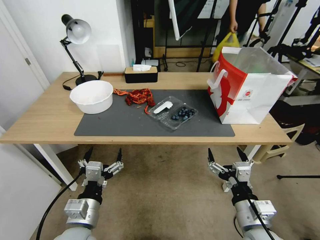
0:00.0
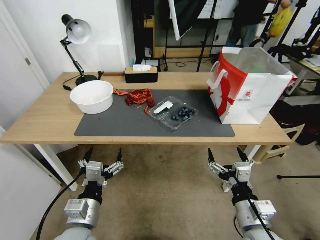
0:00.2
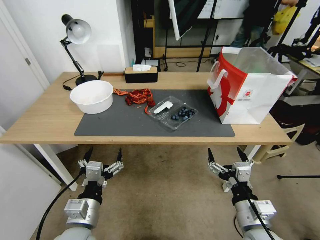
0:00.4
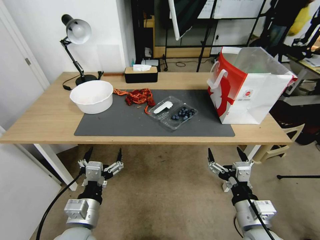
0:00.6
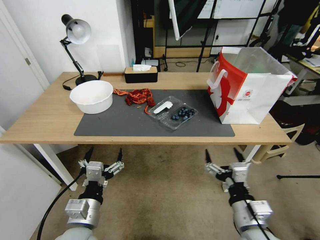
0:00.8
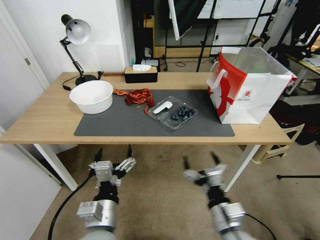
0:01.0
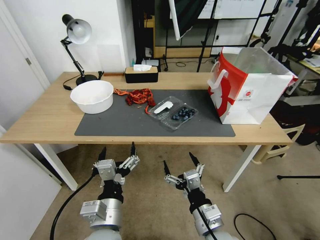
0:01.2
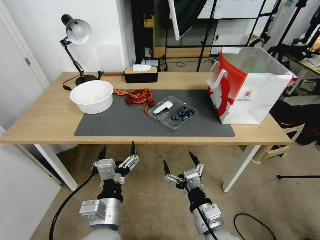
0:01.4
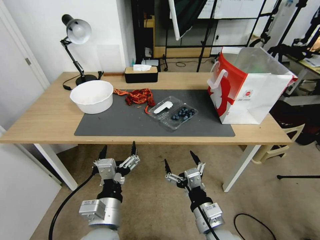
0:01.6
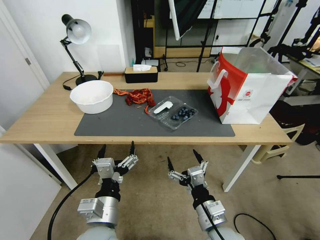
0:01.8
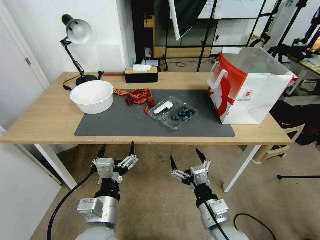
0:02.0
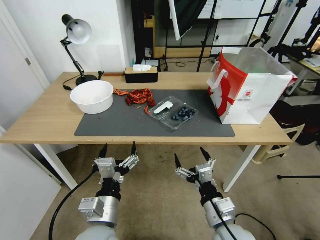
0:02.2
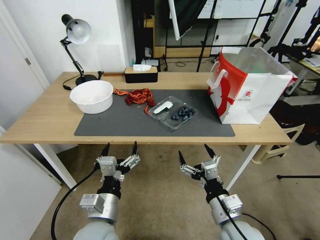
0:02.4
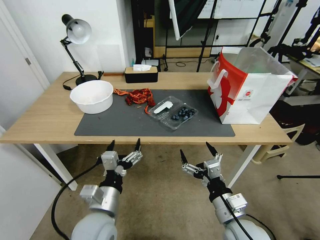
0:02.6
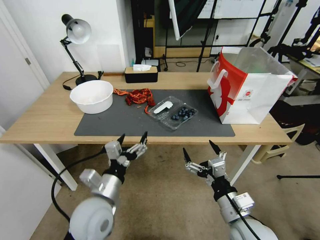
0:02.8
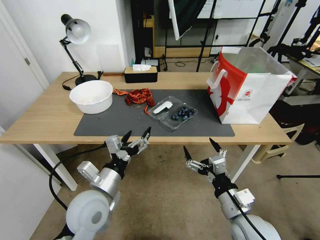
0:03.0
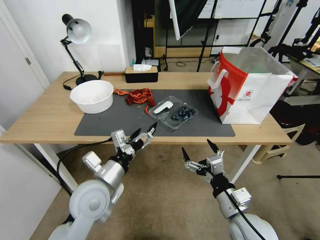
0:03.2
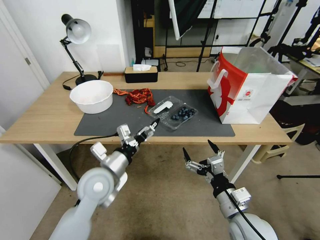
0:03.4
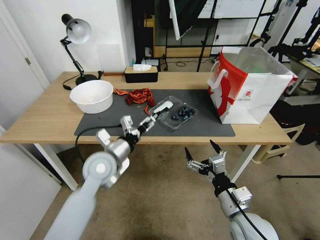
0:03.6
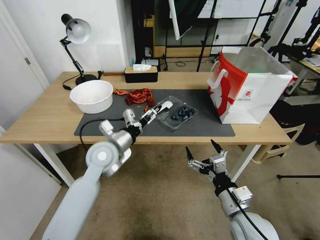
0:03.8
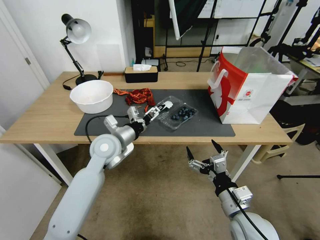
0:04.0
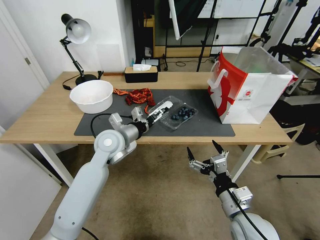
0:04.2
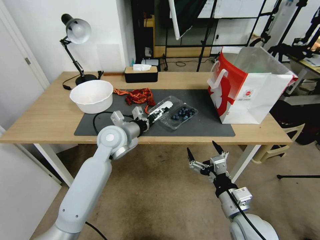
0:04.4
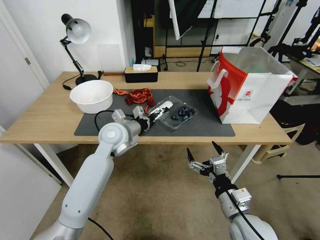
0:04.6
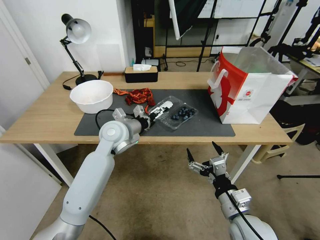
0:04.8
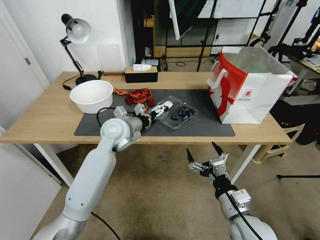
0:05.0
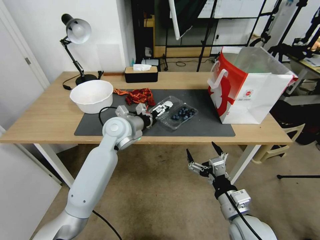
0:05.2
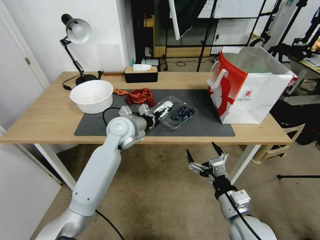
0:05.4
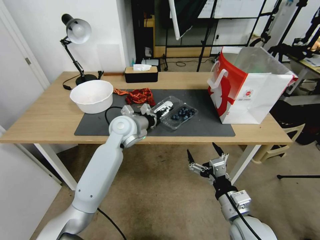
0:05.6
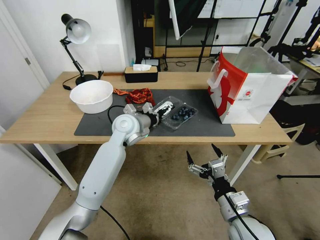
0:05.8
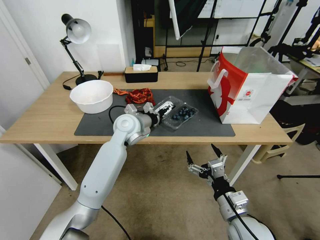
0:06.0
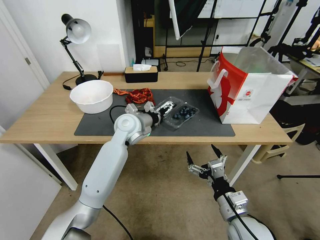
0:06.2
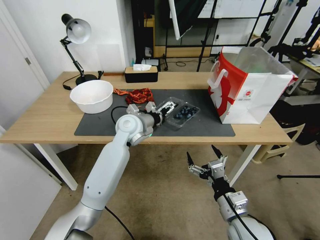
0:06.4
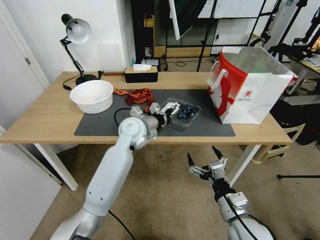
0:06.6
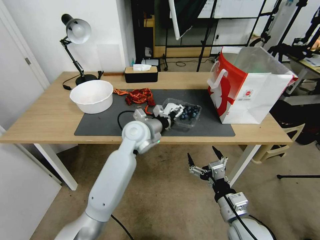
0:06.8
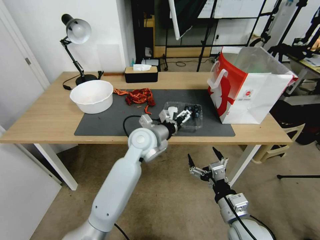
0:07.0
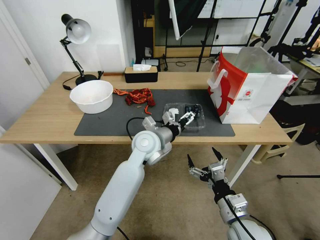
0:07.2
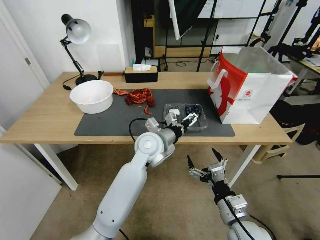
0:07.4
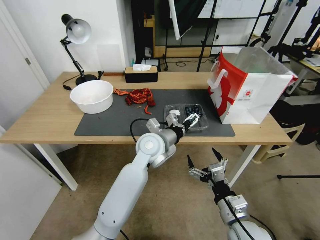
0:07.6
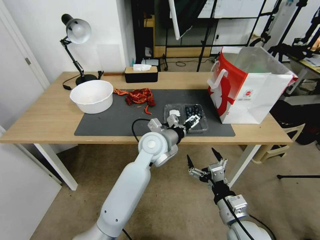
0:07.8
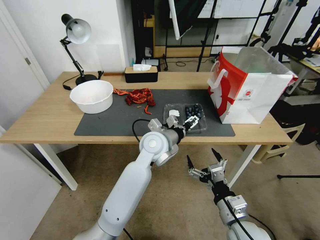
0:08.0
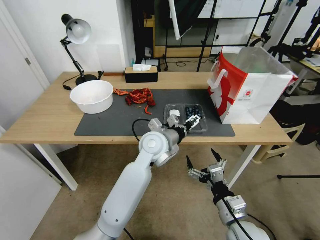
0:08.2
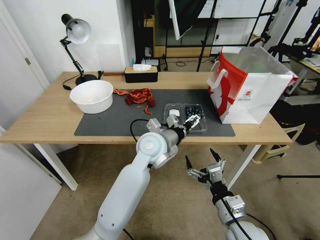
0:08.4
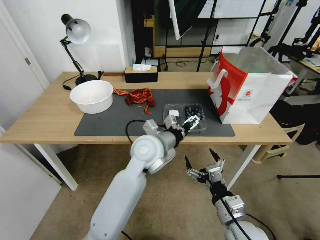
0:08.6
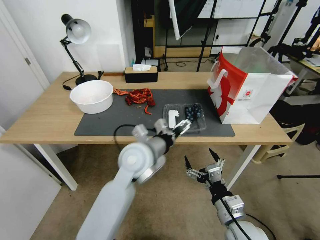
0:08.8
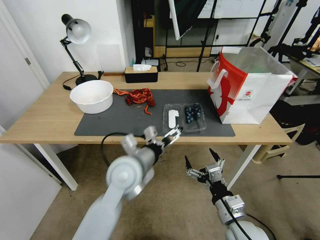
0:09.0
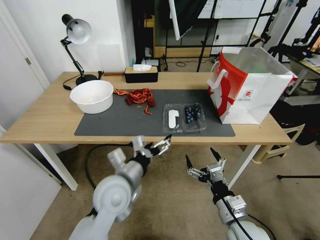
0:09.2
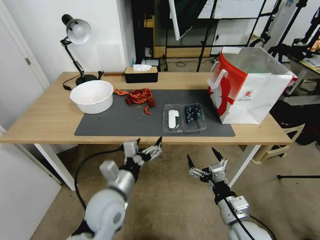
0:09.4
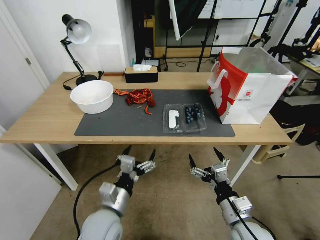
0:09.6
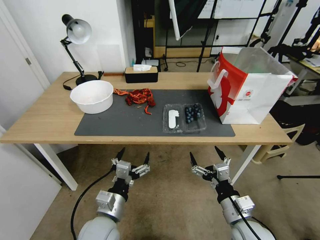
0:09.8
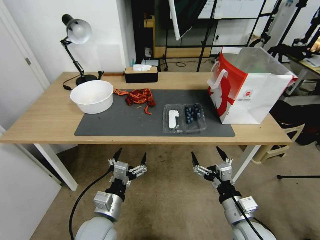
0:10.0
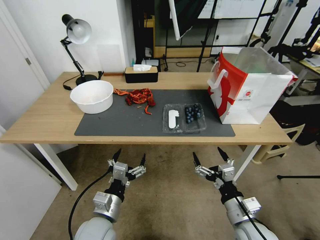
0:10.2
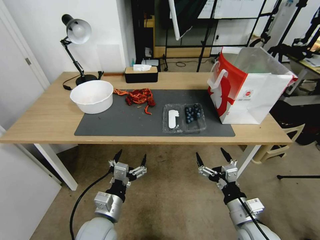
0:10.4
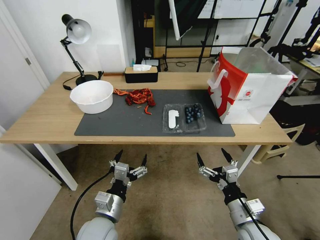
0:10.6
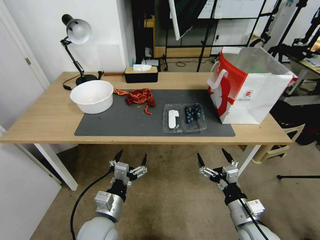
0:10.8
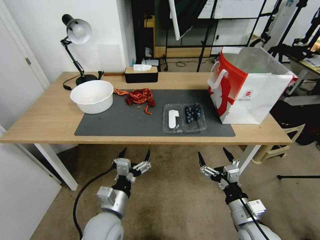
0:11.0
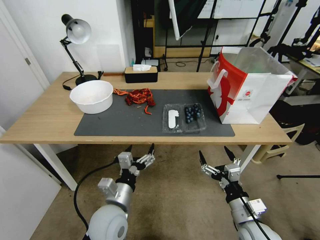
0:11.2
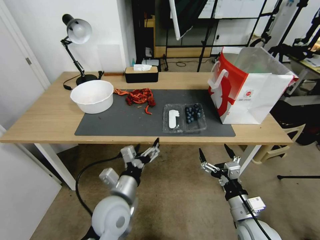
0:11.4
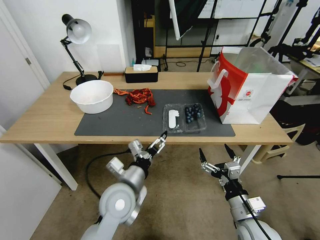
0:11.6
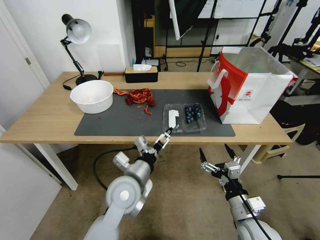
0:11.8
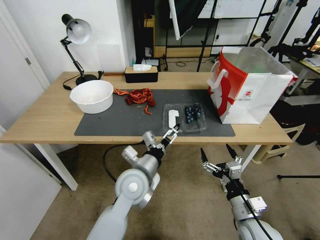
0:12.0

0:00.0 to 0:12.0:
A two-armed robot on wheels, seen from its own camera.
Task of the whole recording: Close the takeout container lid, then place the container into the takeout bag.
0:01.6 to 0:03.0: The left gripper goes about 10 cm forward. Meanwhile the right gripper is displaced to the right by roughly 5 cm.
0:03.0 to 0:04.4: The left gripper goes about 20 cm forward.
0:04.4 to 0:06.0: The left gripper heads forward, covering roughly 5 cm.
0:06.0 to 0:07.6: The left gripper heads to the right and backward, covering roughly 10 cm.
0:07.6 to 0:09.0: The left gripper heads backward and to the left, covering about 10 cm.
0:09.0 to 0:10.4: The left gripper moves downward, backward and to the left, roughly 20 cm.
0:10.4 to 0:12.0: The left gripper shifts approximately 15 cm forward, to the right and upward.

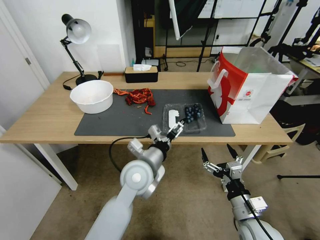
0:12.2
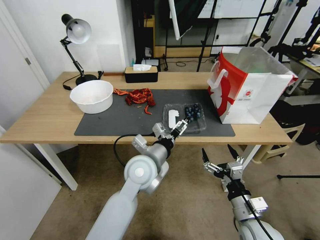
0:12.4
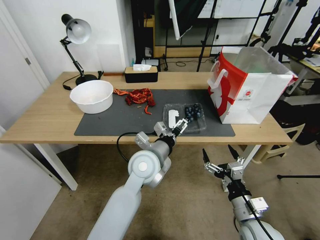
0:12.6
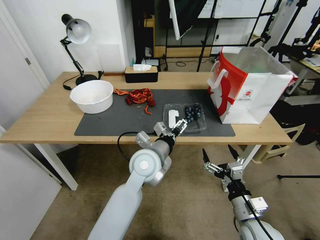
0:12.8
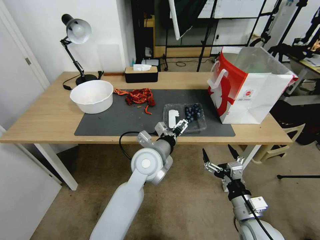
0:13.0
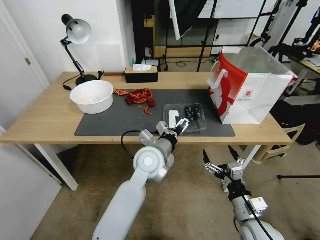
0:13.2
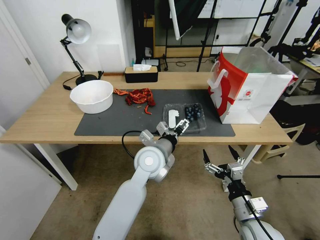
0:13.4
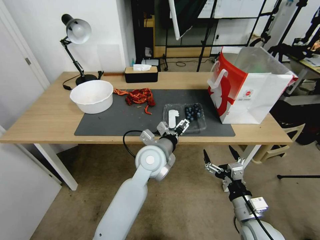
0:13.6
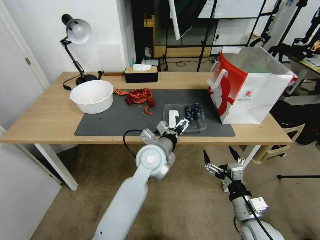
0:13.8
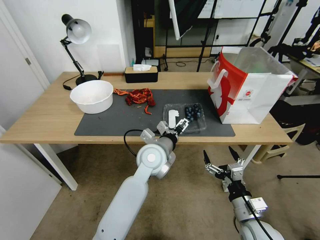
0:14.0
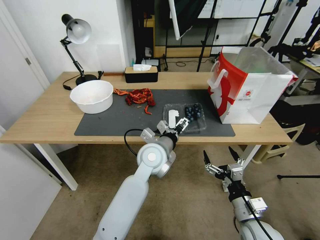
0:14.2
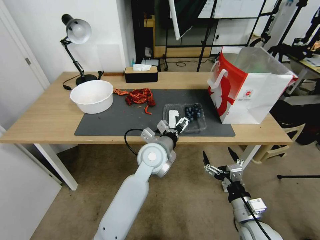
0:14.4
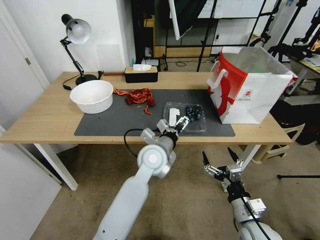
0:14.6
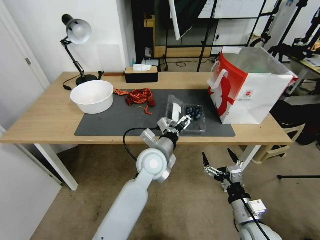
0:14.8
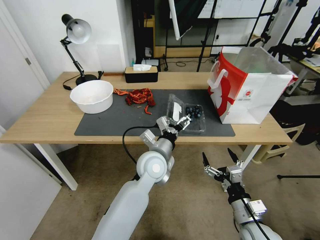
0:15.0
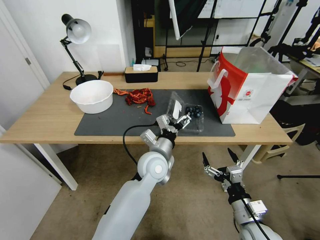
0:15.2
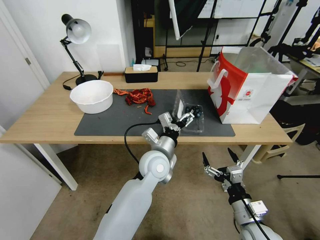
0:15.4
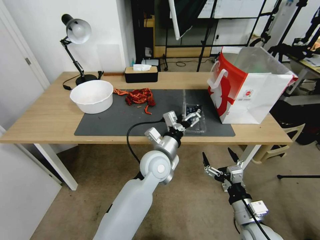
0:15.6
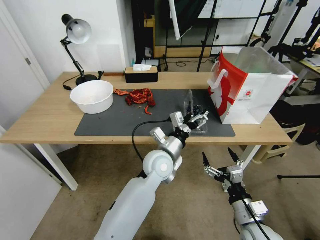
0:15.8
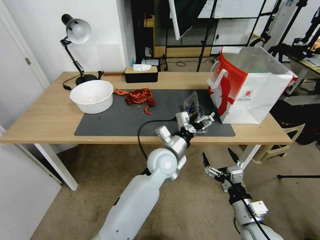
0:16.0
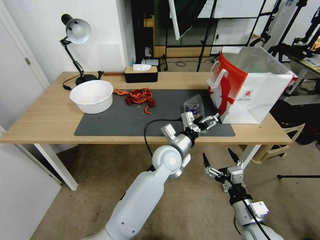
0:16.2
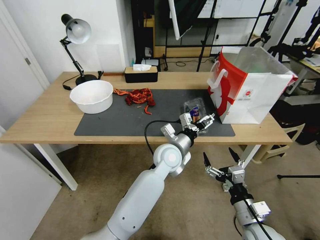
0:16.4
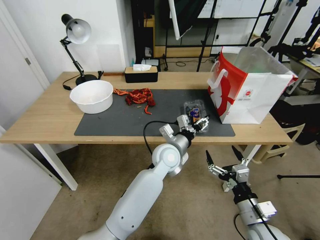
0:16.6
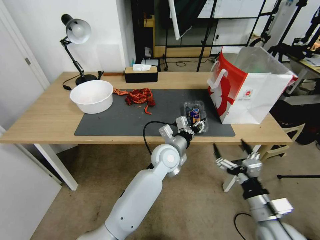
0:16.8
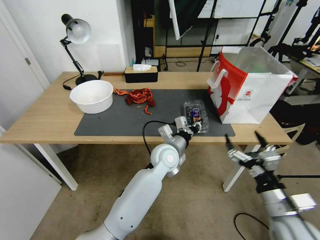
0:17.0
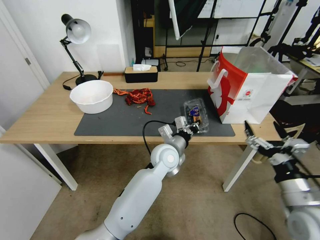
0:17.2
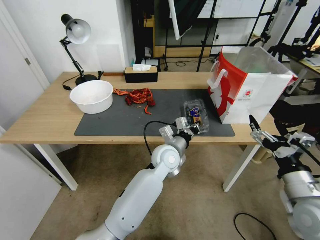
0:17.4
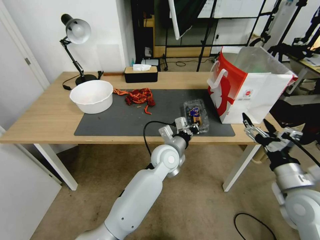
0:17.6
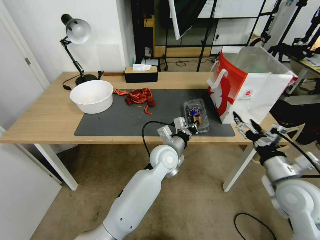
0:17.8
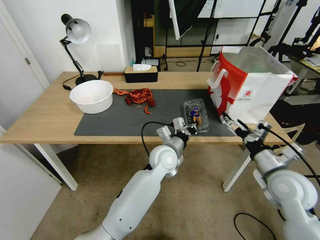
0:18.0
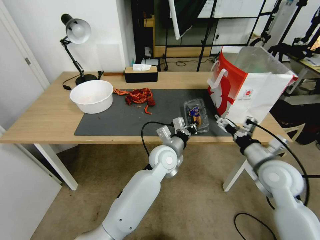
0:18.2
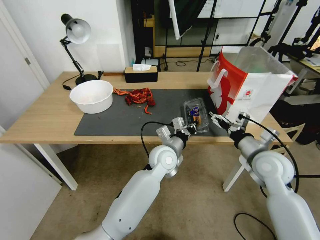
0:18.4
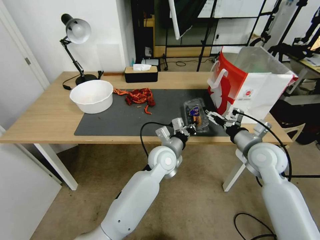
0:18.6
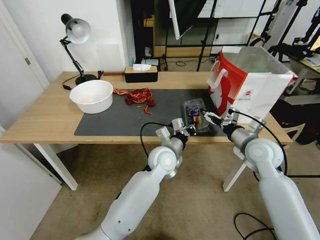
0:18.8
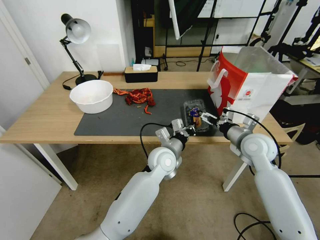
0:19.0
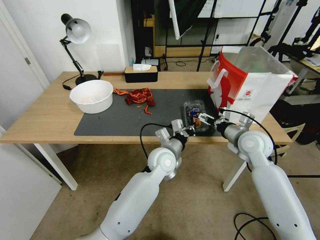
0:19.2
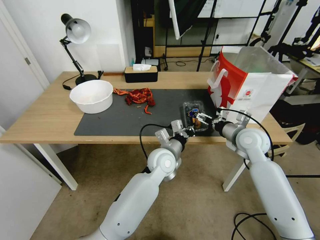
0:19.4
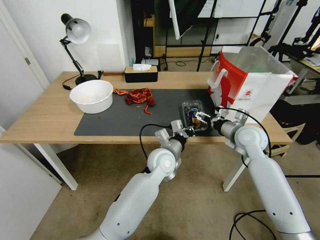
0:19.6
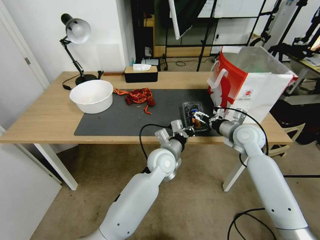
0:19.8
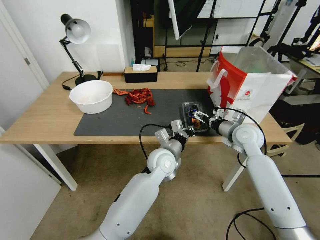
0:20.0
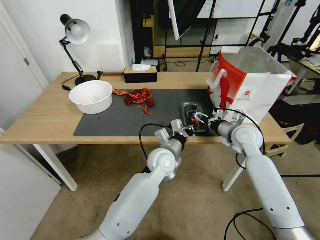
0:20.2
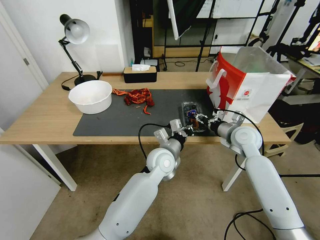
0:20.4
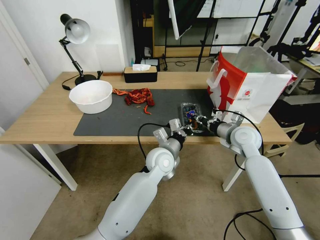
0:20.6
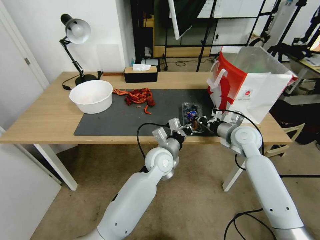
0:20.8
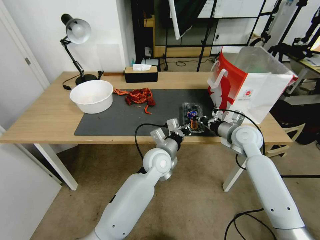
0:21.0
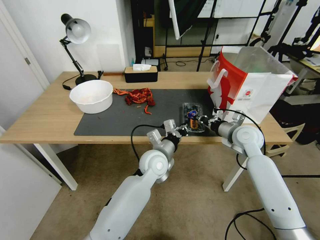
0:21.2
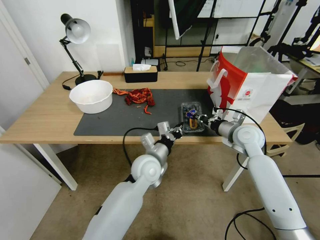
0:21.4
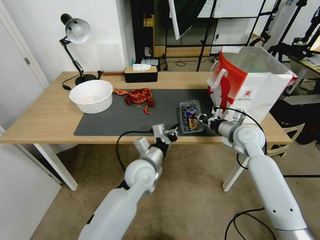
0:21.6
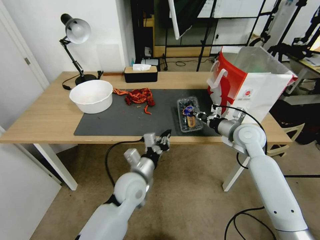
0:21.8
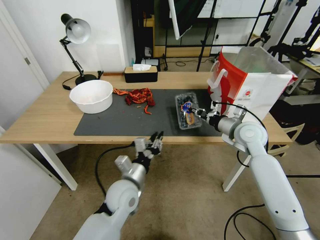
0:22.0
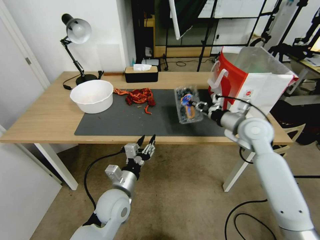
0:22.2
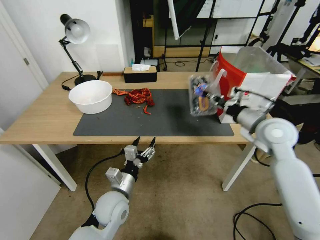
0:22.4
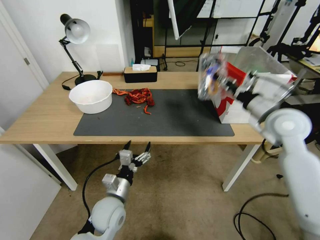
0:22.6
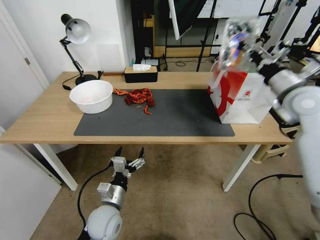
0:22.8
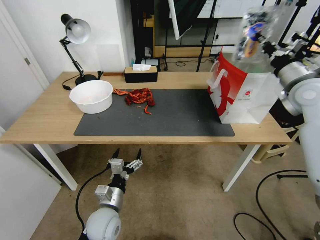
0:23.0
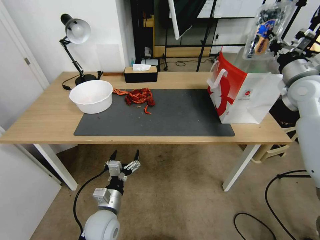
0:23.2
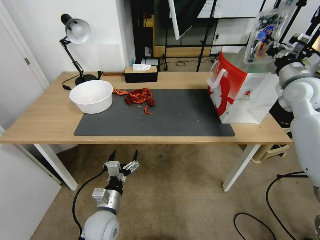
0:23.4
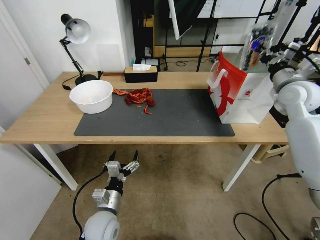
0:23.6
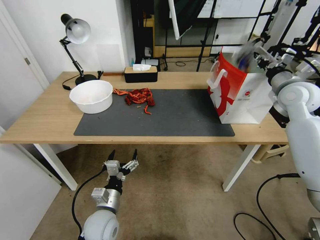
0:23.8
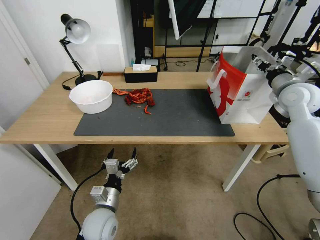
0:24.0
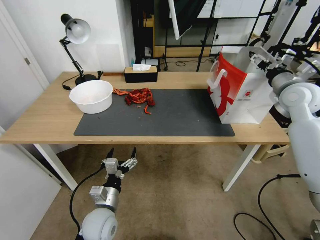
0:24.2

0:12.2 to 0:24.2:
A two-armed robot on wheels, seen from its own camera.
Task of the whole recording: Close the takeout container lid, then place the container into the takeout bag.
0:12.2 to 0:13.8: The left gripper changes place by some 5 cm.
0:15.2 to 0:16.6: The left gripper ends up some 5 cm from where it was.
0:16.6 to 0:18.2: The left gripper closes up. The right gripper moves forward and upward, some 15 cm.
0:18.2 to 0:19.8: The right gripper goes roughly 15 cm forward.
0:19.8 to 0:21.2: The right gripper closes its fingers.
0:21.2 to 0:22.6: The right gripper is displaced upward by roughly 10 cm. The left gripper heads to the left, backward and downward, covering some 20 cm, and opens its fingers.
0:22.6 to 0:24.2: The right gripper heads forward, to the right and upward, covering about 10 cm, and opens up. Meanwhile the left gripper moves approximately 5 cm.
